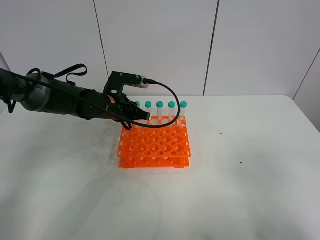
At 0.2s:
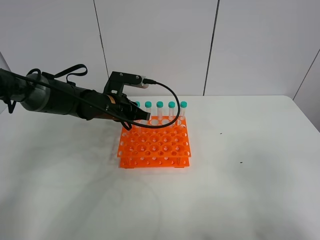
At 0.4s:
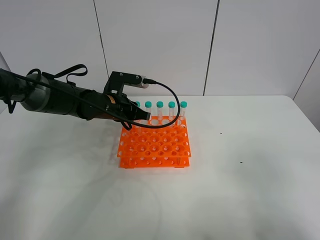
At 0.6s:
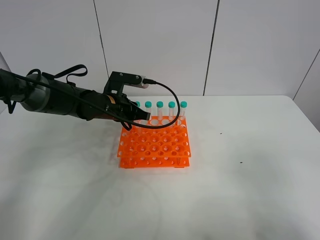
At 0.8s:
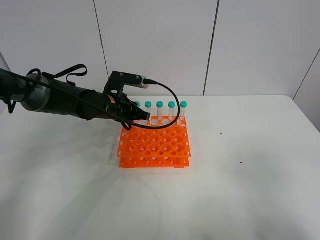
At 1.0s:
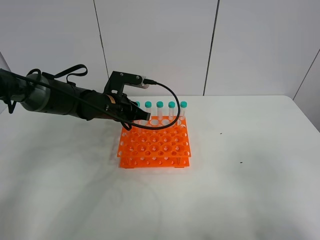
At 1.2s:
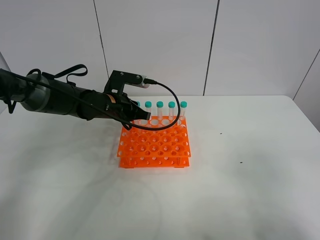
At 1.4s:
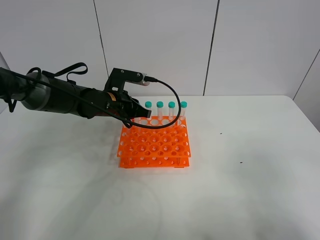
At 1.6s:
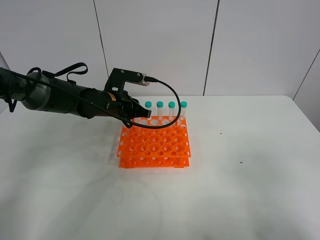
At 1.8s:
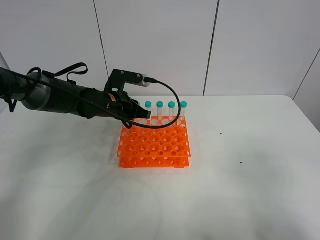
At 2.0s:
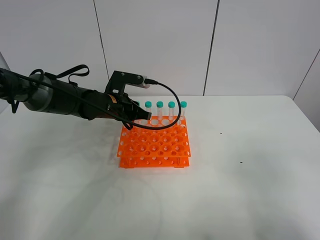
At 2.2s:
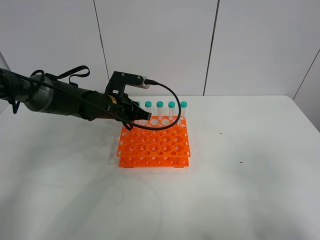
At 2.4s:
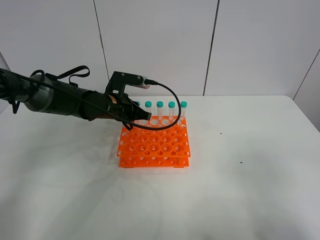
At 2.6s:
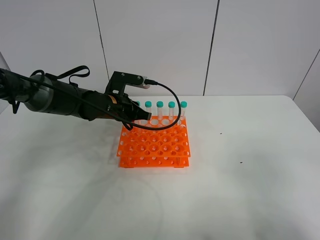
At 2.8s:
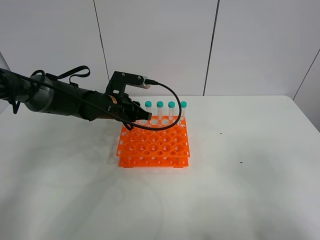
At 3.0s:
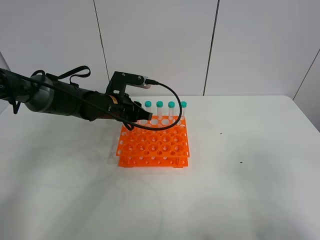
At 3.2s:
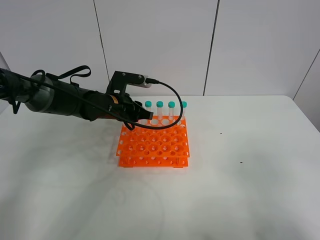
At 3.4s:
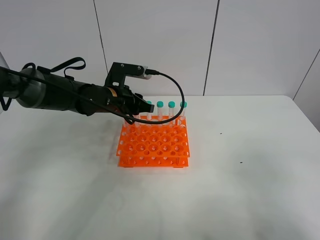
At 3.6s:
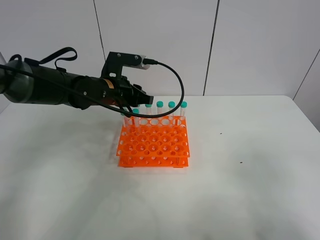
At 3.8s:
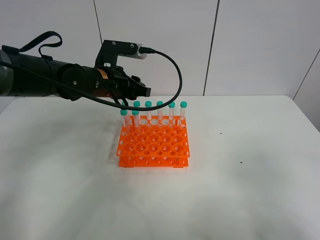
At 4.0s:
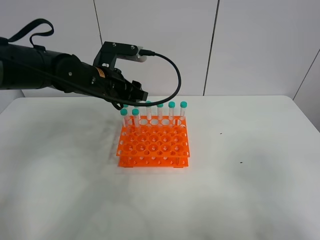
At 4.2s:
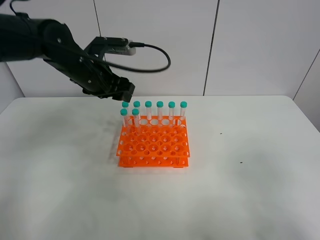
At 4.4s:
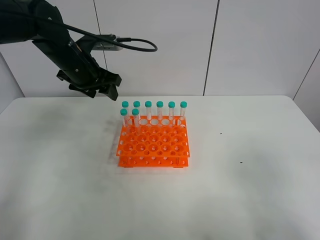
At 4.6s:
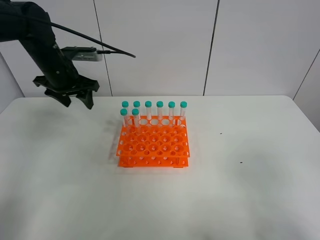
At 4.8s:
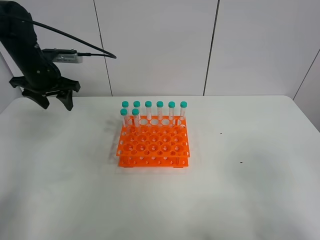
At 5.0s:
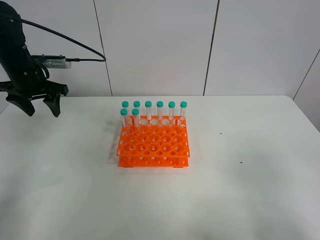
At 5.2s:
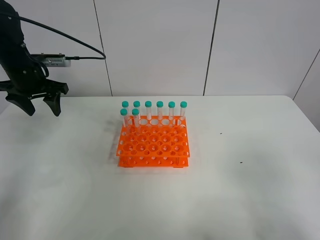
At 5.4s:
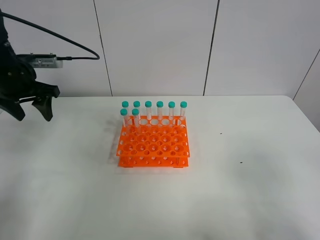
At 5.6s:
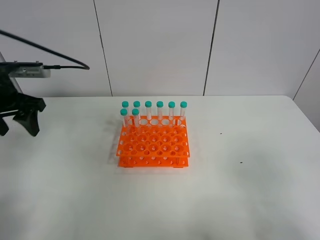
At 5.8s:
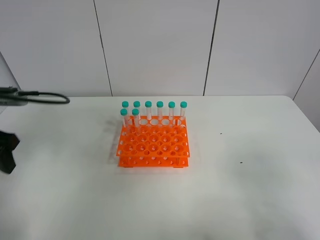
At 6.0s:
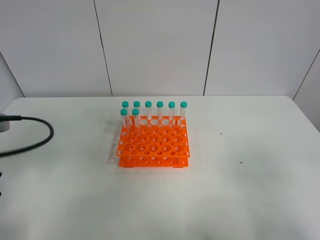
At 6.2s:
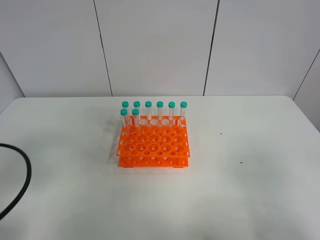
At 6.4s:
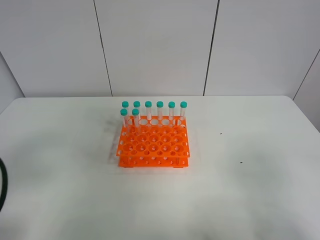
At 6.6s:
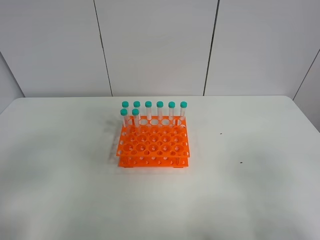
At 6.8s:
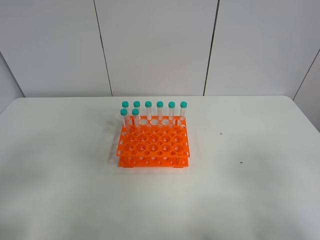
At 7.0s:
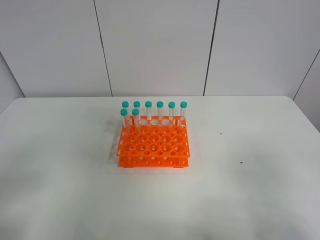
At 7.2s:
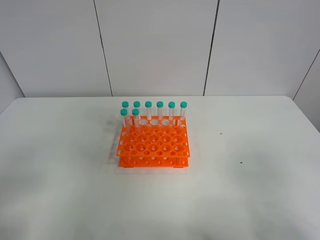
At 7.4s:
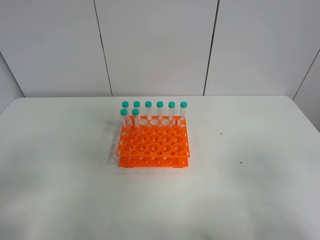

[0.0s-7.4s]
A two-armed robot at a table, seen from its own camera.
Task of the whole recording: Put the test tube on the table back onto the test tube rack.
Step, 0.0s to 3.2s: Place the test tube on the test tube rack with the left gripper.
0.0s to 3.0s: Both grippers stay put.
3.0s to 4.4s: The left gripper moves upward and to the left, about 15 cm, and opens.
4.4s to 6.0s: The left gripper moves backward and to the left, some 25 cm.
6.0s to 7.4s: The left gripper goes some 15 cm backward.

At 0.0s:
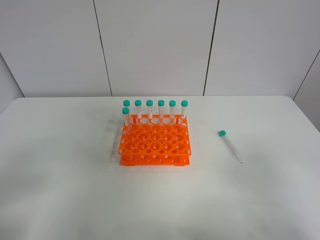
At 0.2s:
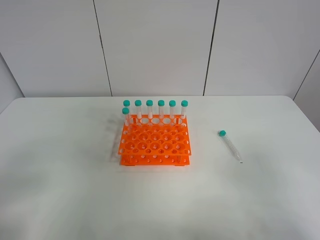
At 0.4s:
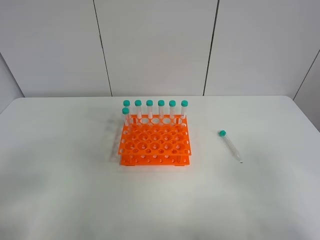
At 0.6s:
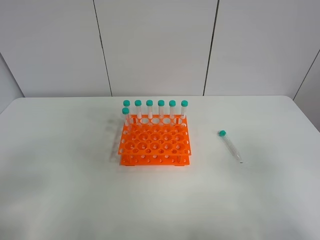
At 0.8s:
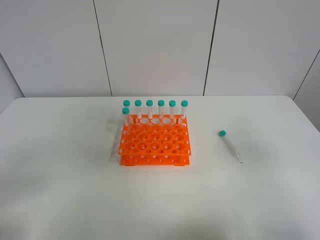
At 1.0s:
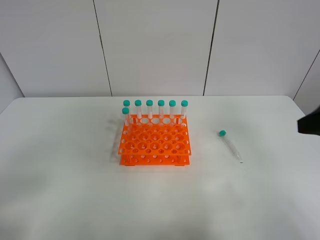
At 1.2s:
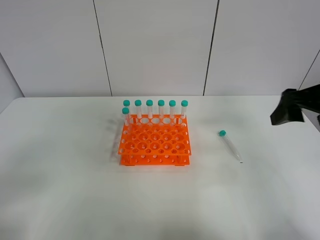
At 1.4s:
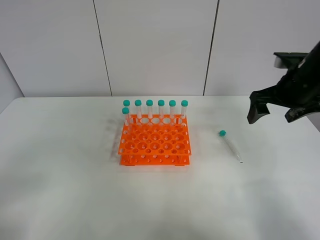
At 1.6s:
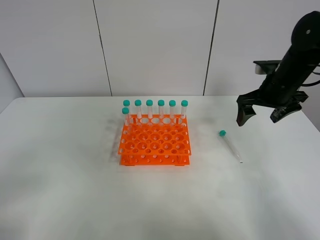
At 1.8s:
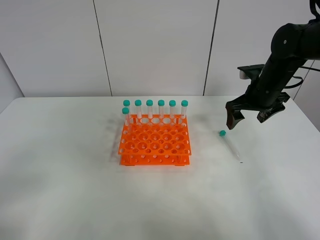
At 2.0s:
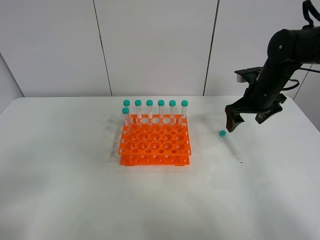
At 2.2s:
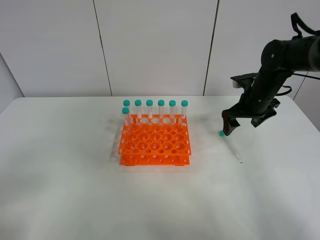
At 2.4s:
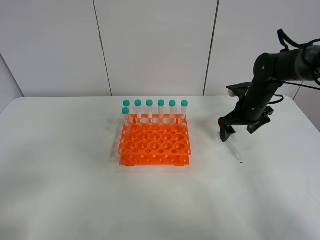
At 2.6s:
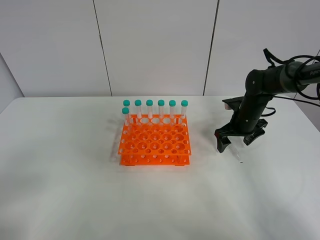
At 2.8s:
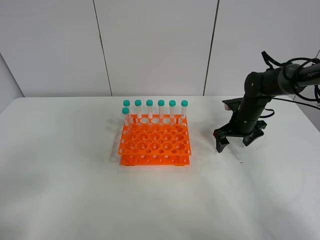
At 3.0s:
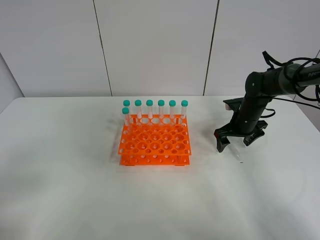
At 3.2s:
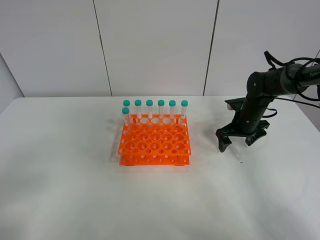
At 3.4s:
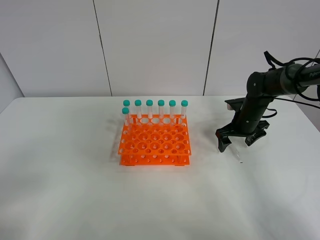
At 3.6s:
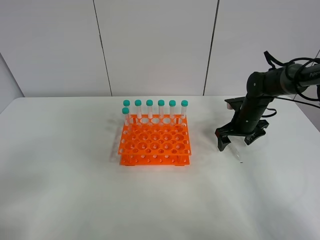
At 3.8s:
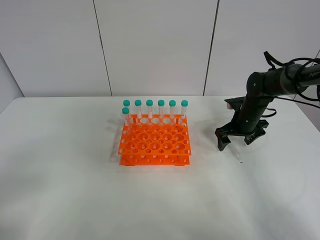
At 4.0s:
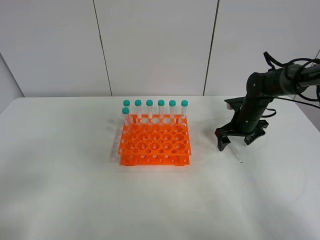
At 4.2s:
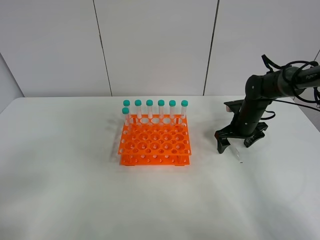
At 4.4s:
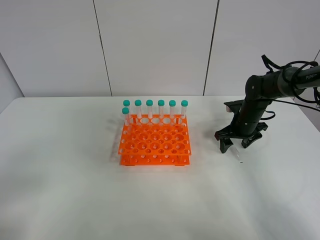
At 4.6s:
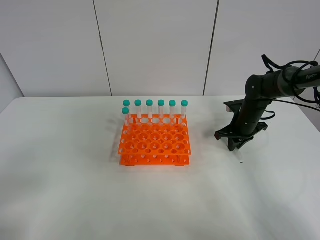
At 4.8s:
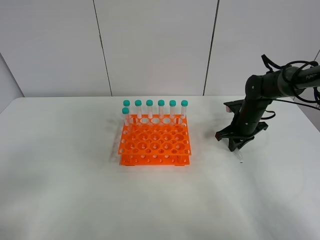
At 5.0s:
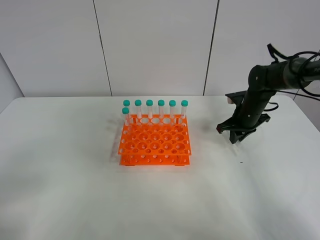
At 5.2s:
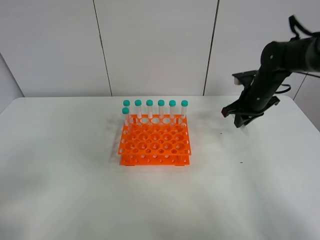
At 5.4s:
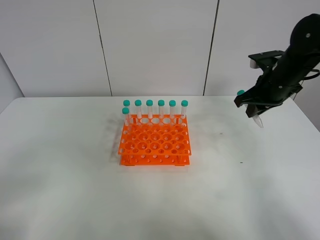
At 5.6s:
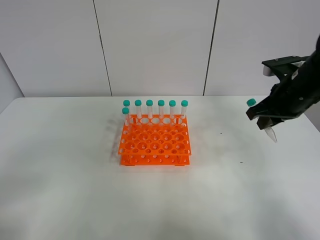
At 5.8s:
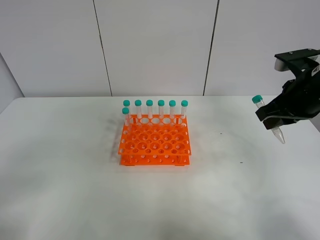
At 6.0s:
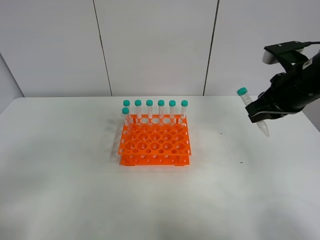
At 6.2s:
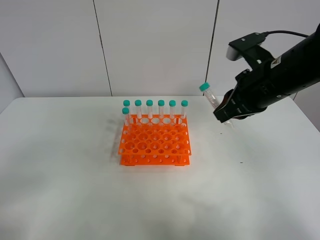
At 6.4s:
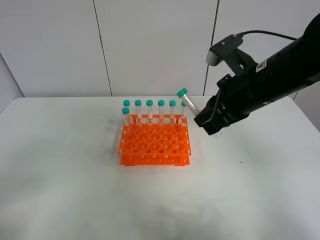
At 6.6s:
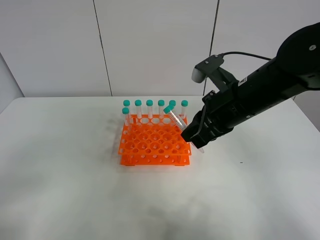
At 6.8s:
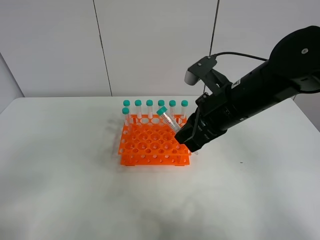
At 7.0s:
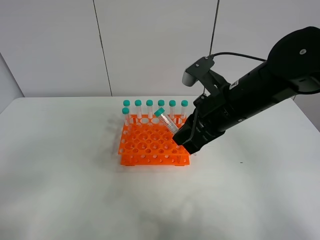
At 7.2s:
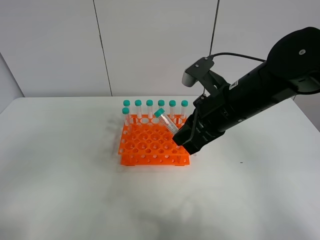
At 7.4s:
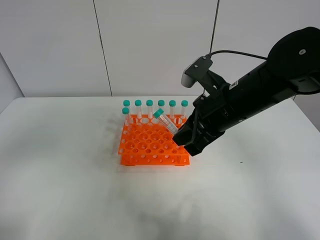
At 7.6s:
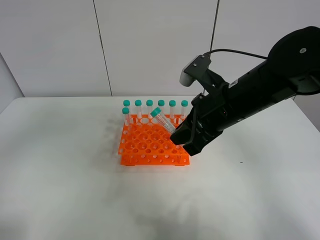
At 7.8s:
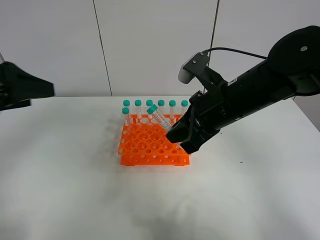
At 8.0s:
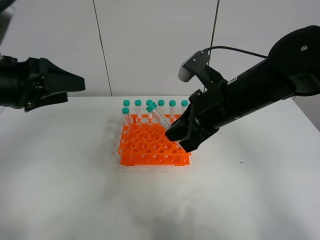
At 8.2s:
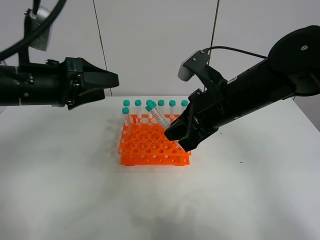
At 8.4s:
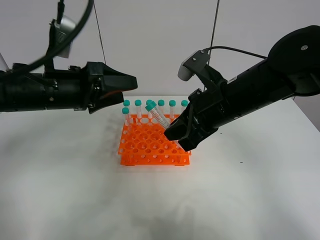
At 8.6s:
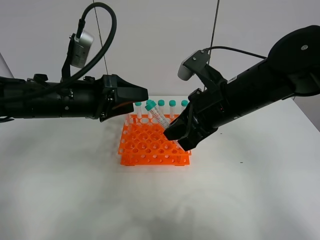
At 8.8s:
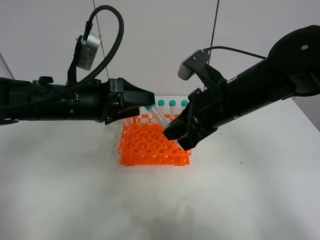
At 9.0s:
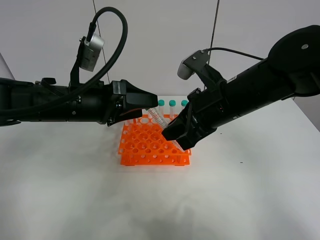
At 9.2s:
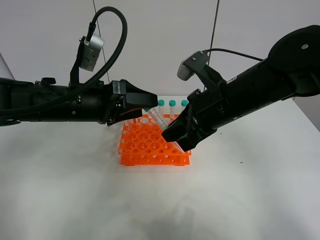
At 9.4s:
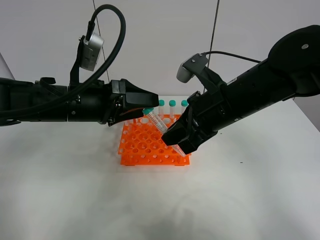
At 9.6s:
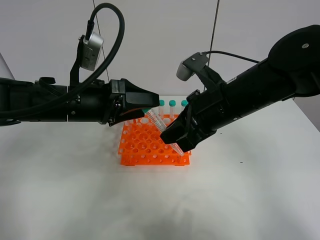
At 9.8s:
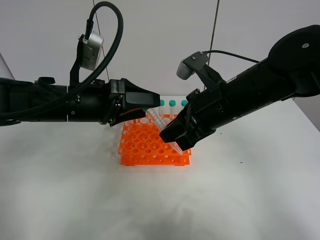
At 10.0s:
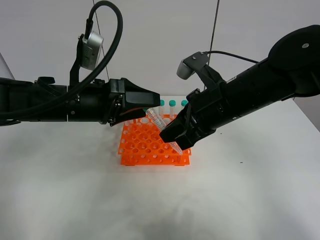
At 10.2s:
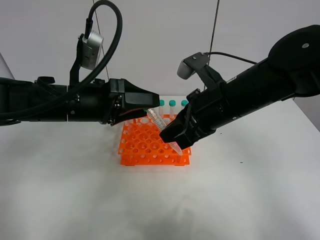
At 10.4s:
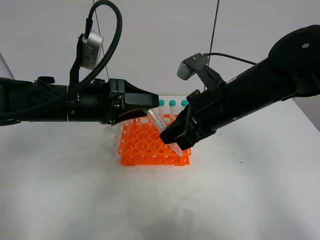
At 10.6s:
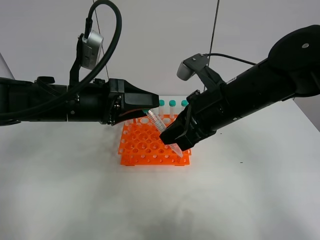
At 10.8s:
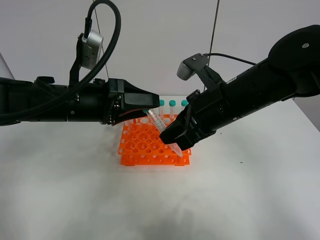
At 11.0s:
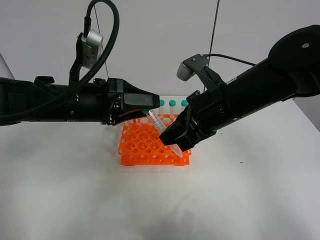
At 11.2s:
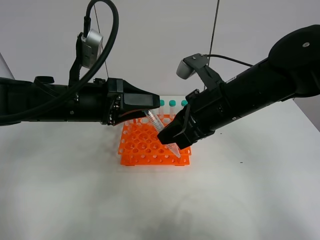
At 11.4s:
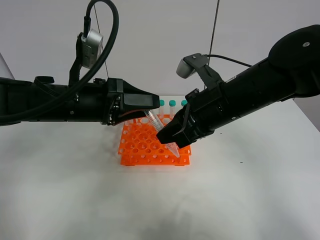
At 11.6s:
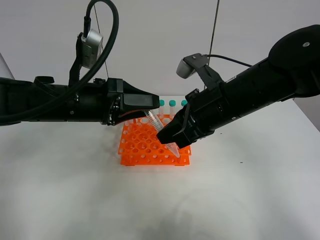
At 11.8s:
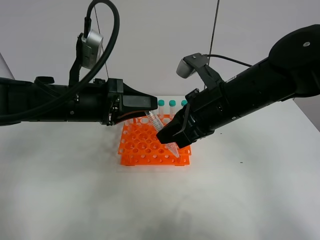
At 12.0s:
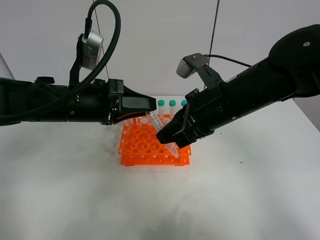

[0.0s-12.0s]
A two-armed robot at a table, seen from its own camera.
Task of the whole recording: Put the test tube on the table back onto the test tube rack.
Step, 0.0s to 4.6s: Pick up the test tube with the right gripper.
0.0s to 1.6s: The right gripper goes about 35 cm forward.
1.6s to 3.0s: The right gripper shifts approximately 15 cm downward.
3.0s to 4.4s: The right gripper closes up.
4.4s to 6.0s: The right gripper heads upward and backward, covering about 25 cm, and closes its fingers.
6.0s to 7.6s: The right gripper travels to the left by roughly 10 cm. The left gripper moves forward and upward, about 15 cm.
7.6s to 9.0s: The left gripper goes some 25 cm forward, to the right and downward.
9.0s to 10.4s: Neither gripper changes place.
10.4s to 12.0s: The left gripper closes up.

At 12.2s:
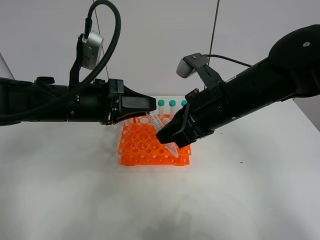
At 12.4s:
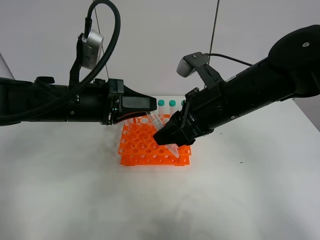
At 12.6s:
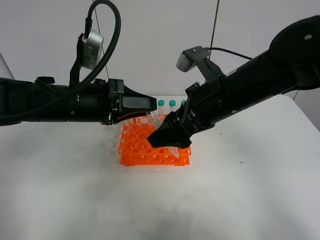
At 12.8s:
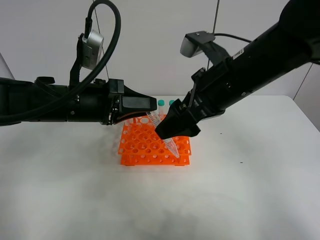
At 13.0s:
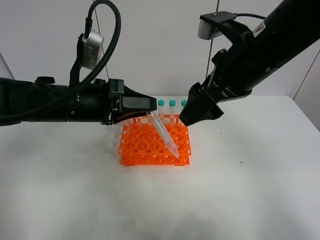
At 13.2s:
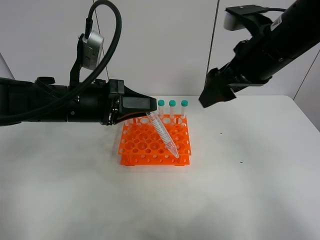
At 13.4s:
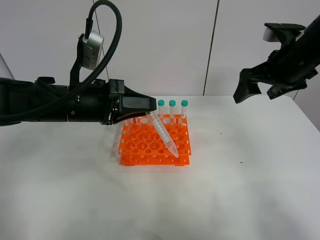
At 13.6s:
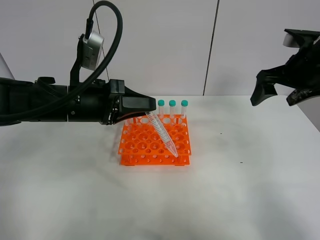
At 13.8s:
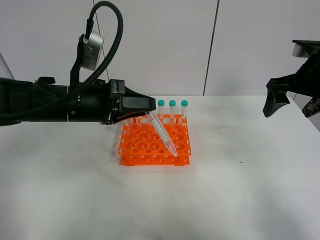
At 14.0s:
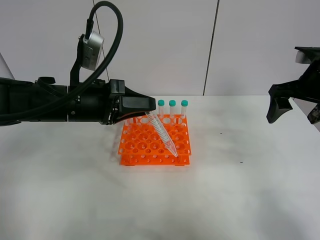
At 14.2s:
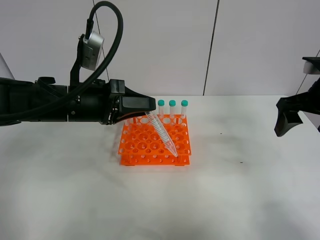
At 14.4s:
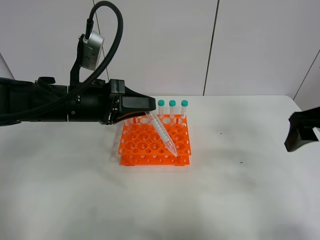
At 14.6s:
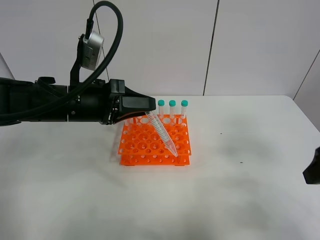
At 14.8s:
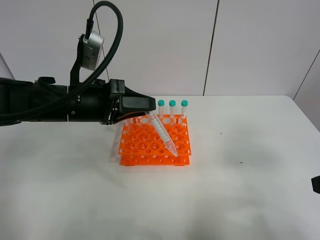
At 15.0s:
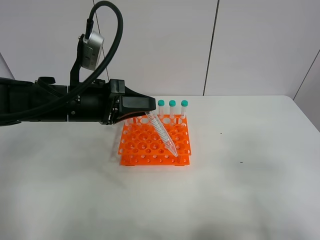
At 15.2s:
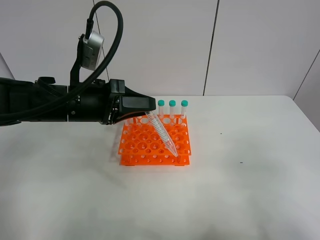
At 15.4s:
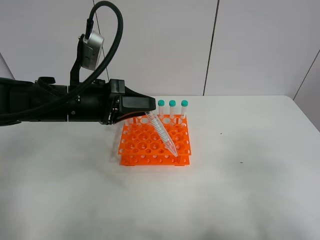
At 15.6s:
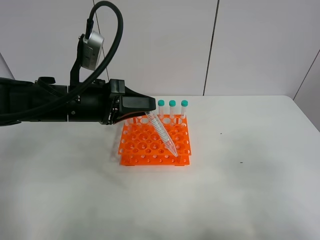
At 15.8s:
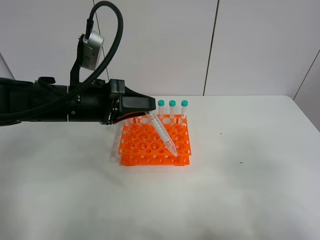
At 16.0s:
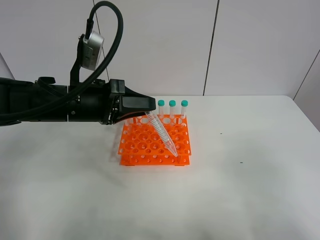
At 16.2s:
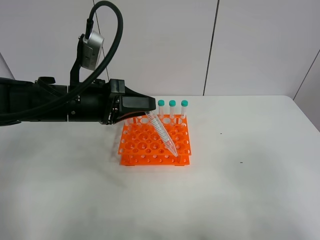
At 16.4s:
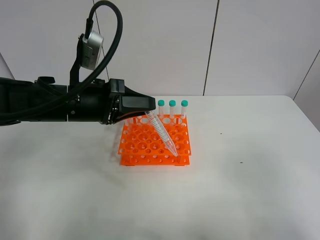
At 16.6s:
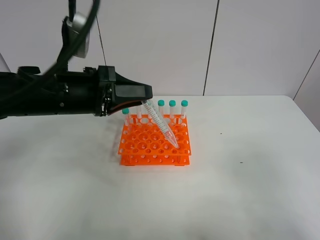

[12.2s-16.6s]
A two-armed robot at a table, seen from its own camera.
Task of the whole recording: Put the test tube on the table back onto the test tube rack.
12.2s to 13.6s: The right gripper goes approximately 20 cm to the right and forward, and opens its fingers.
13.6s to 15.2s: The right gripper is displaced backward by approximately 30 cm.
15.2s to 16.6s: The grippers stay close to where they were, moving slightly.
